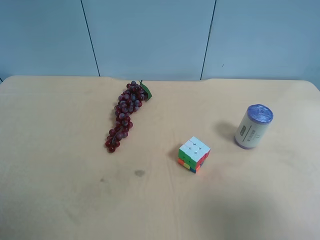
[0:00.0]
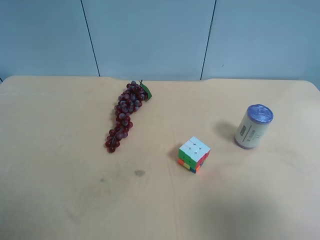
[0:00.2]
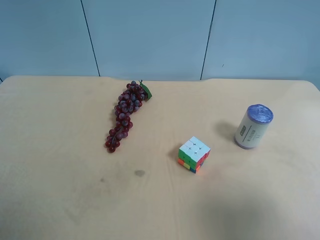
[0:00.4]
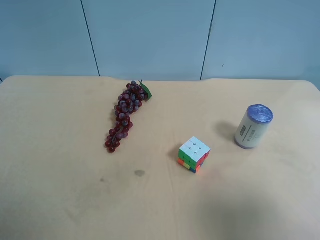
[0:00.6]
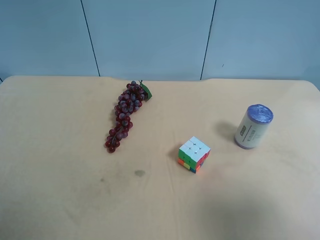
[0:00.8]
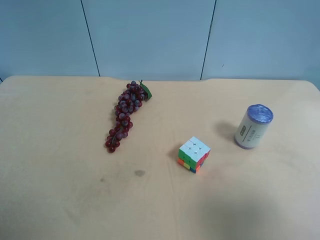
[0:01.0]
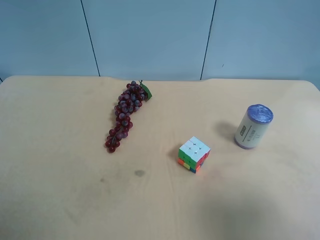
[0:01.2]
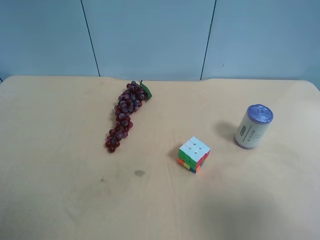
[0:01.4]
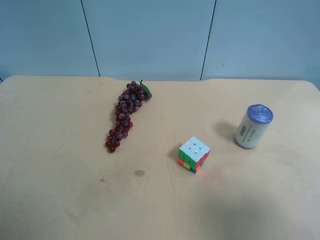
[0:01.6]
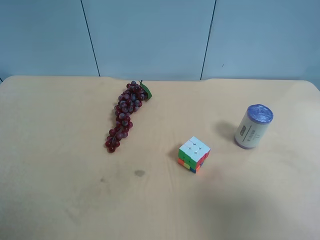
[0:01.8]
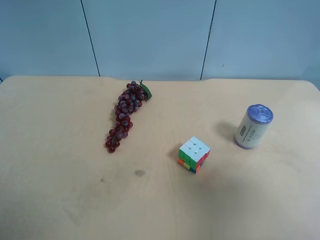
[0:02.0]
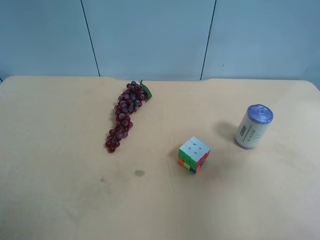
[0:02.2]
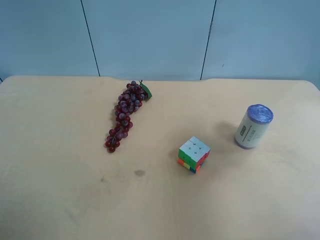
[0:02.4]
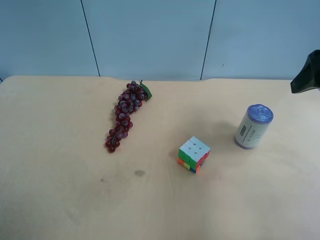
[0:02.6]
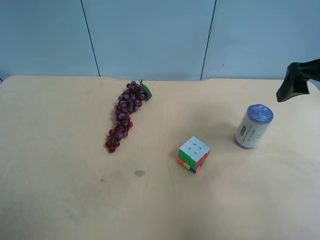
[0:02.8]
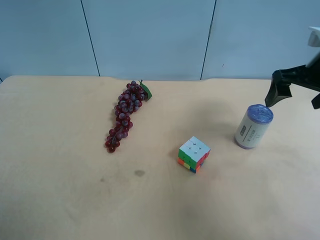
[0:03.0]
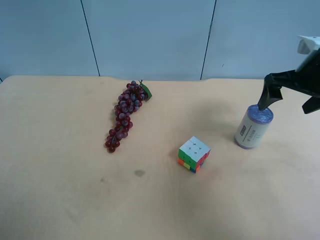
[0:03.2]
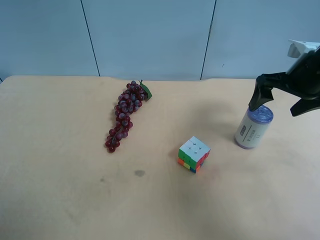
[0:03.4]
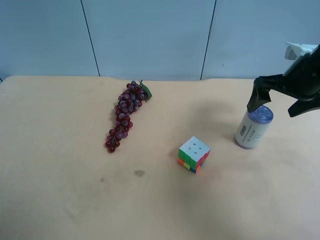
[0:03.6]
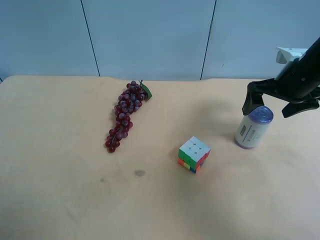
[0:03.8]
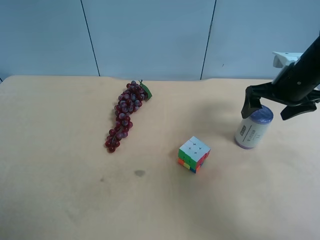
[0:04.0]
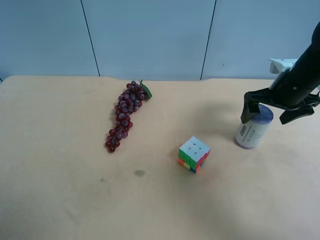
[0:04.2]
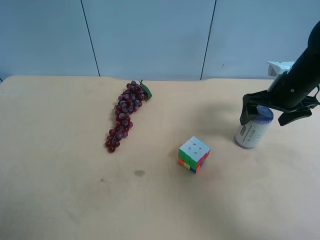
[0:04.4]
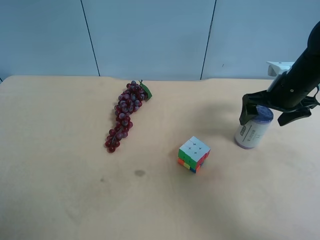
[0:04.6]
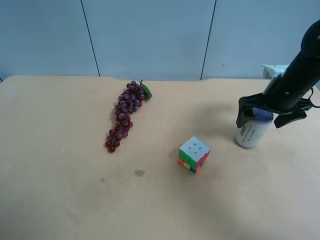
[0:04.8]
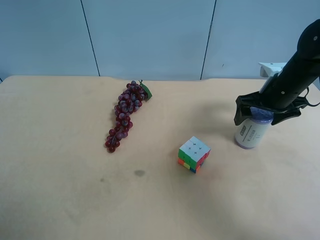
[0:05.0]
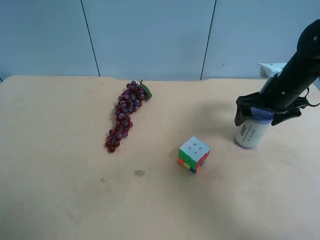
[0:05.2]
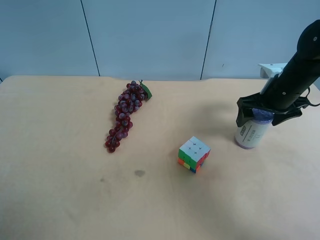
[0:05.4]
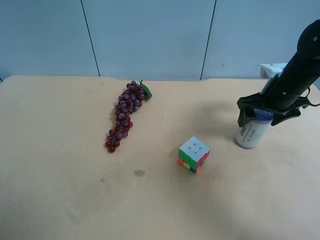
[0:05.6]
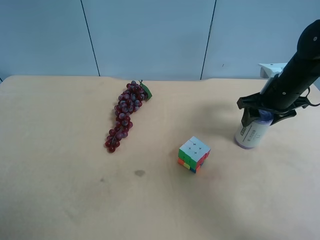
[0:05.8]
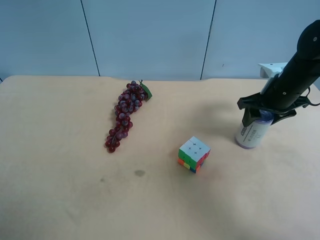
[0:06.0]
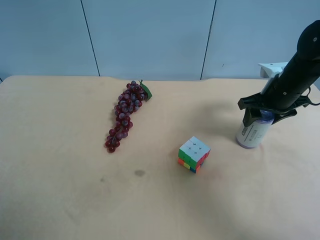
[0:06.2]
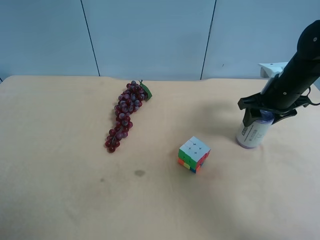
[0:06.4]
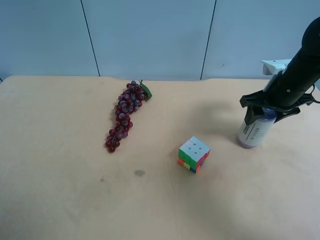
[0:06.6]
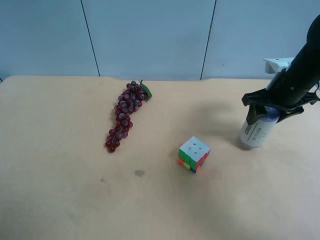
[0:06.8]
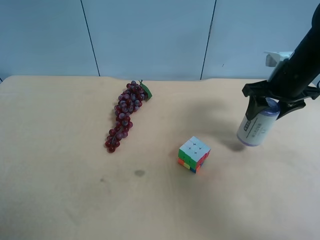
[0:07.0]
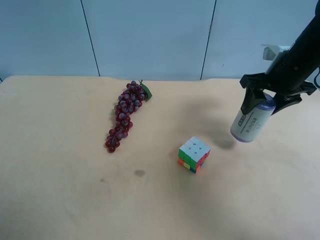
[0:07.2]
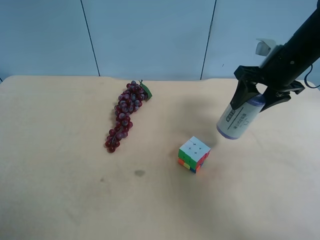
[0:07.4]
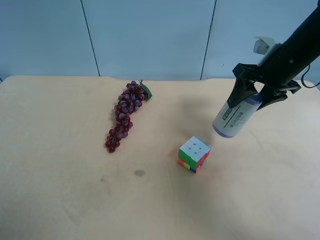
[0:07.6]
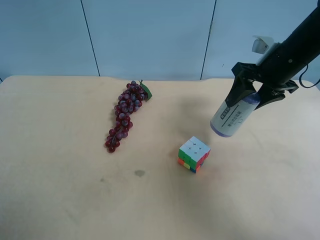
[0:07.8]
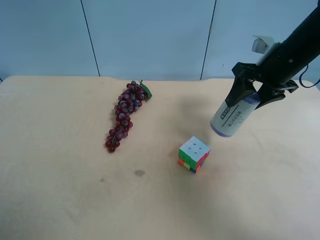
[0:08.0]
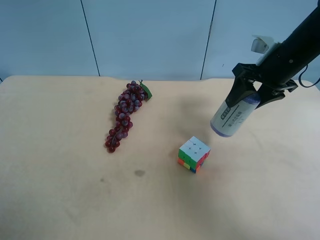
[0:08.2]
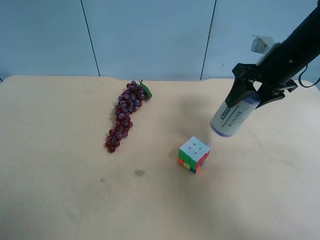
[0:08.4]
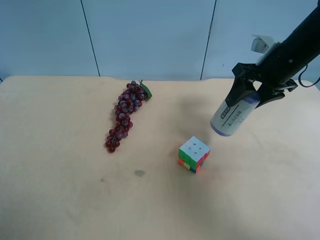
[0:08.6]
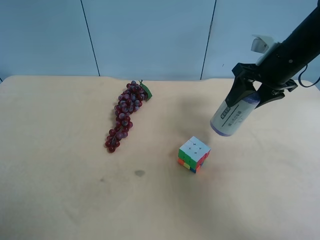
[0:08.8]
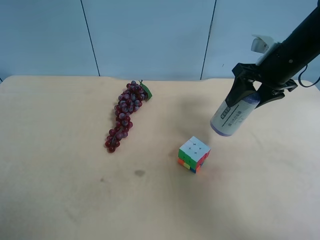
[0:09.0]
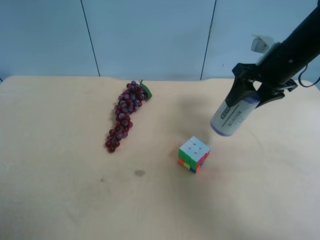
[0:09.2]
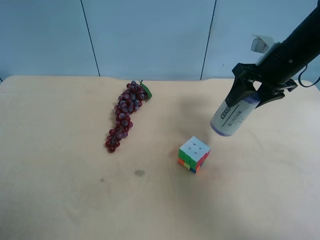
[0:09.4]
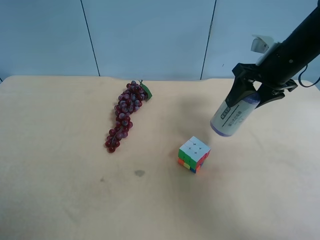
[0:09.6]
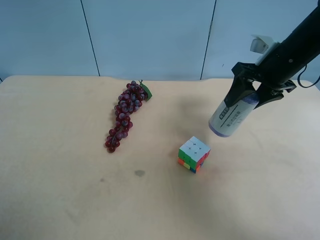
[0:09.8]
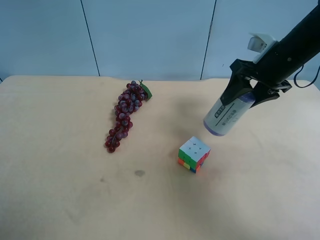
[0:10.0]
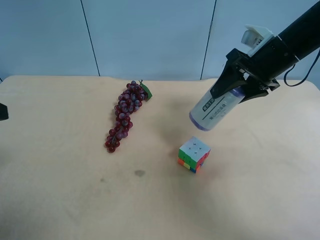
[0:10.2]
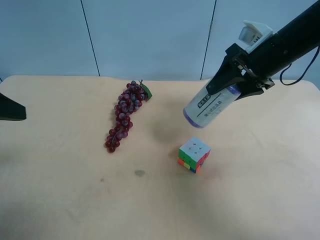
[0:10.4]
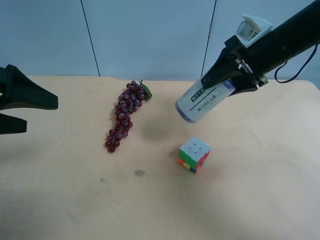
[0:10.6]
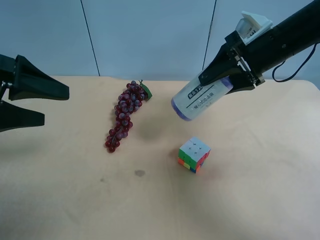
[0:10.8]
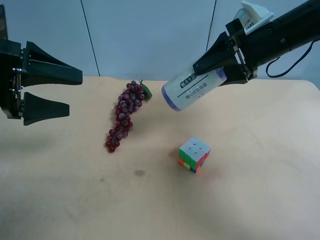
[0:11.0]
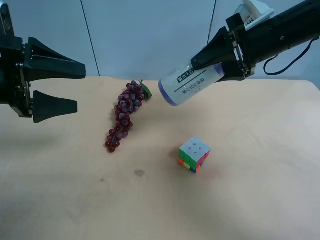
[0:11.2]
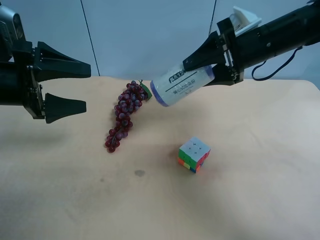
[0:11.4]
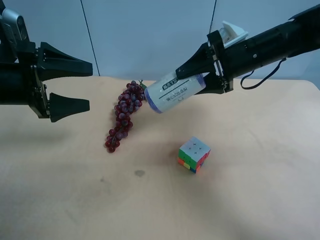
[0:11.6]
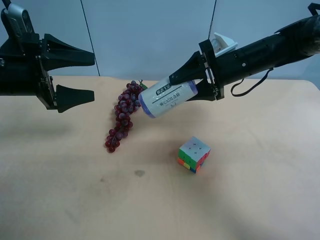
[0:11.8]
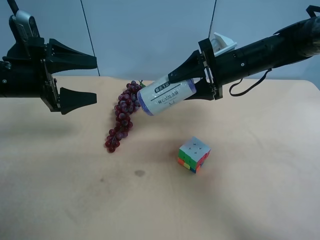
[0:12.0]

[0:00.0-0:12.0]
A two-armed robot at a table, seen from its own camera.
Task of the whole recording: use the right gripper to pick up the item and transfer it from the right gripper to the left gripper.
0:00.0 to 0:01.6: Both grippers stay about where they are.
0:01.6 to 0:03.0: The right gripper moves forward, roughly 30 cm.
0:03.0 to 0:04.4: The right gripper is displaced downward by roughly 5 cm.
0:04.4 to 0:06.0: The right gripper closes up.
0:06.0 to 0:07.6: The right gripper shifts roughly 5 cm upward.
0:07.6 to 0:09.0: Both grippers stay put.
0:09.0 to 0:10.4: The left gripper travels forward by approximately 15 cm.
0:10.4 to 0:12.0: The right gripper shifts by some 5 cm. The left gripper shifts about 15 cm forward and downward.

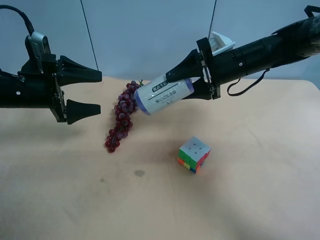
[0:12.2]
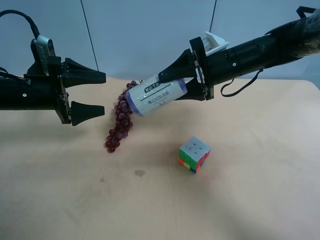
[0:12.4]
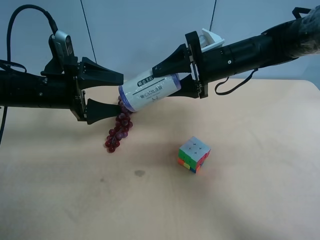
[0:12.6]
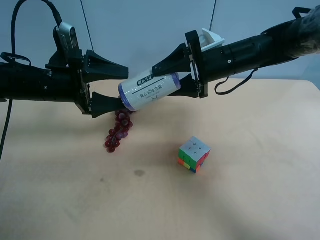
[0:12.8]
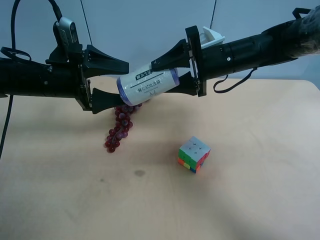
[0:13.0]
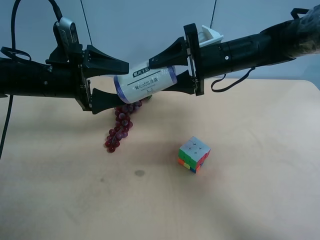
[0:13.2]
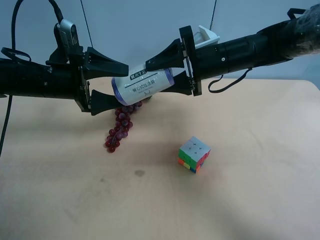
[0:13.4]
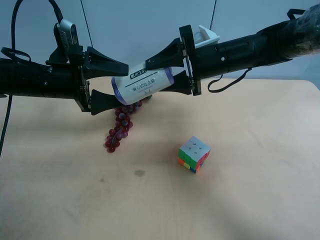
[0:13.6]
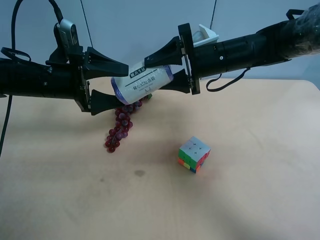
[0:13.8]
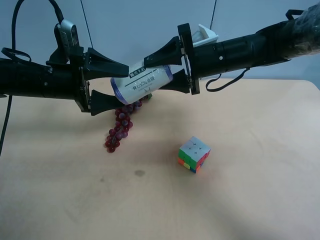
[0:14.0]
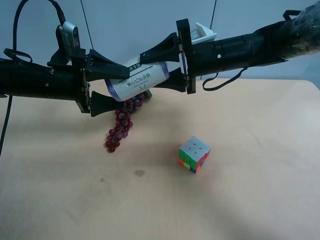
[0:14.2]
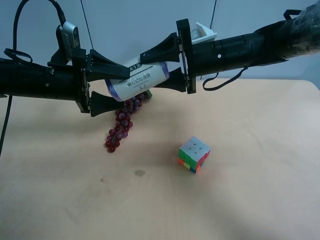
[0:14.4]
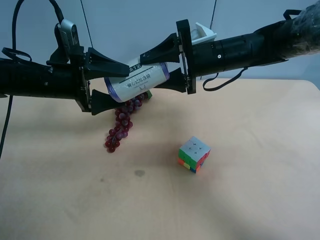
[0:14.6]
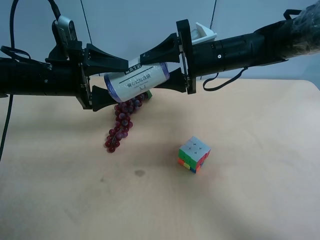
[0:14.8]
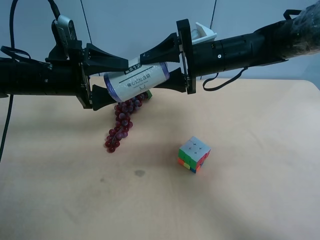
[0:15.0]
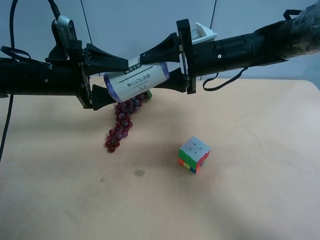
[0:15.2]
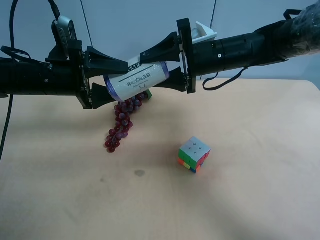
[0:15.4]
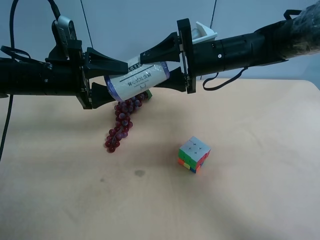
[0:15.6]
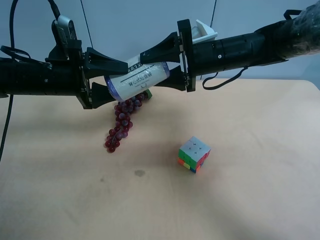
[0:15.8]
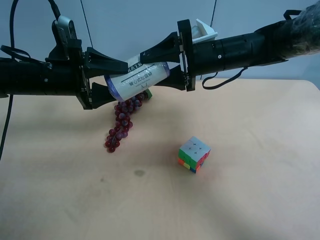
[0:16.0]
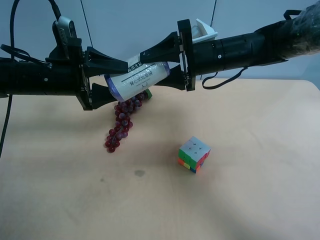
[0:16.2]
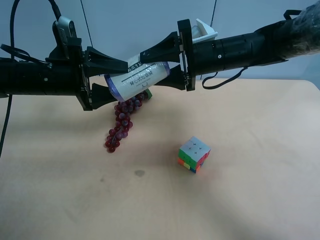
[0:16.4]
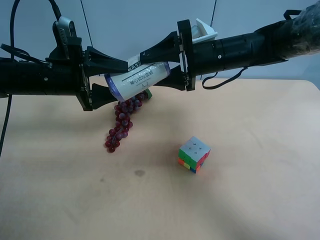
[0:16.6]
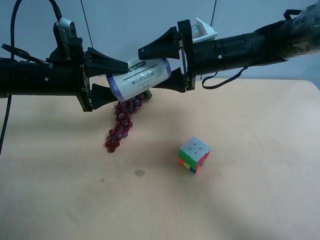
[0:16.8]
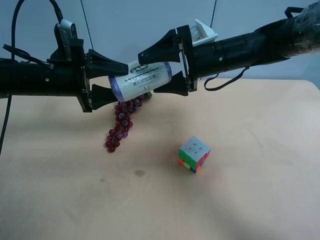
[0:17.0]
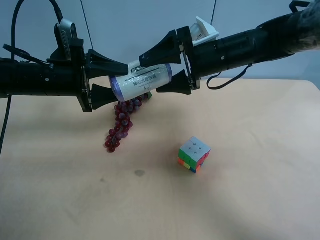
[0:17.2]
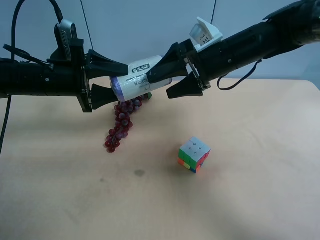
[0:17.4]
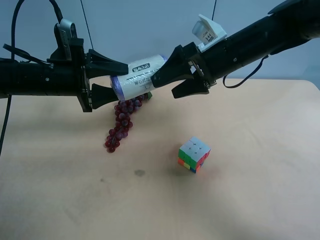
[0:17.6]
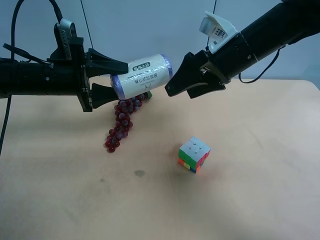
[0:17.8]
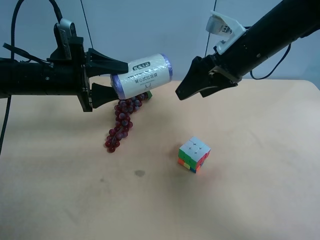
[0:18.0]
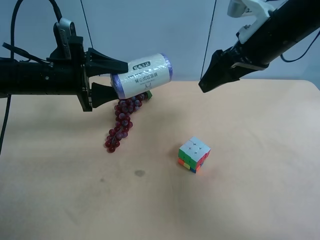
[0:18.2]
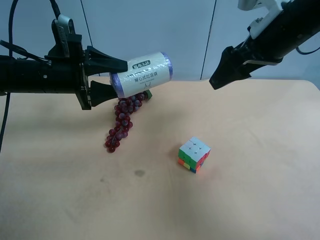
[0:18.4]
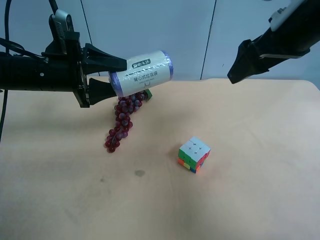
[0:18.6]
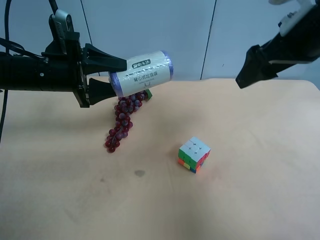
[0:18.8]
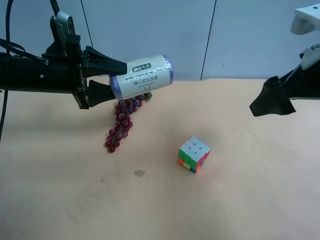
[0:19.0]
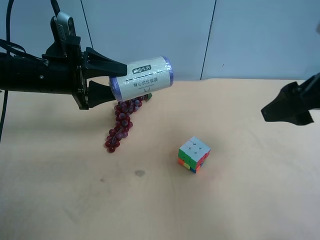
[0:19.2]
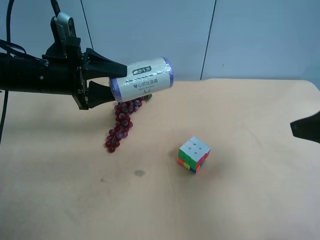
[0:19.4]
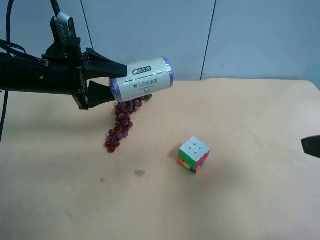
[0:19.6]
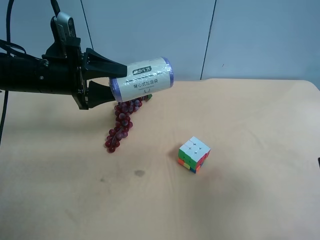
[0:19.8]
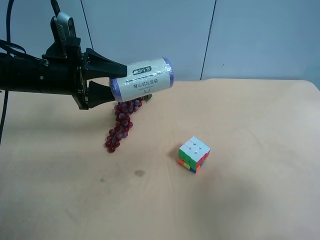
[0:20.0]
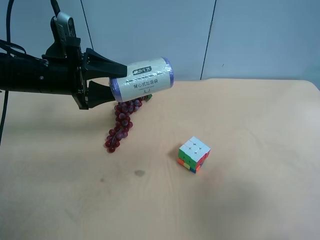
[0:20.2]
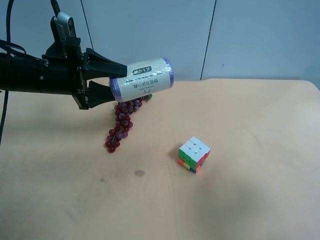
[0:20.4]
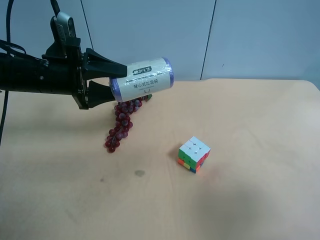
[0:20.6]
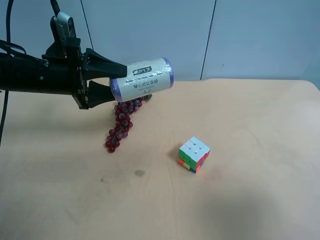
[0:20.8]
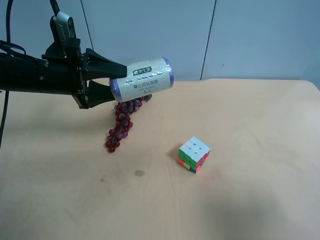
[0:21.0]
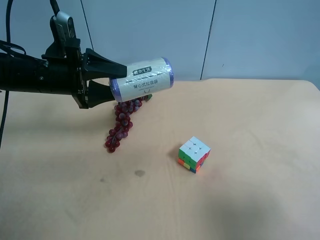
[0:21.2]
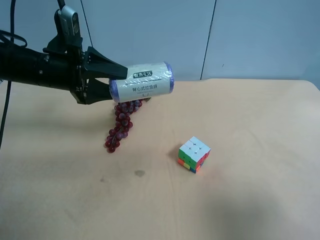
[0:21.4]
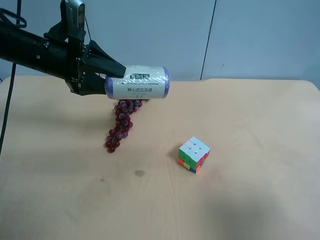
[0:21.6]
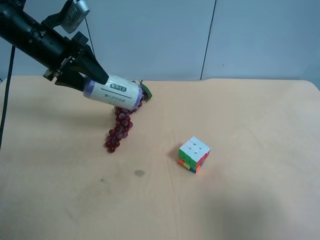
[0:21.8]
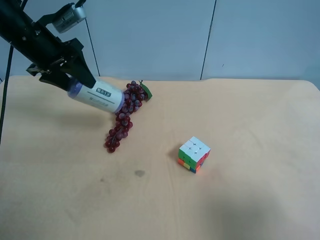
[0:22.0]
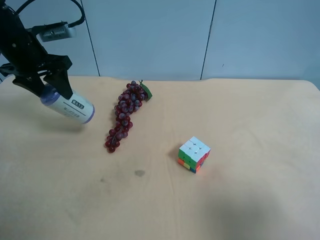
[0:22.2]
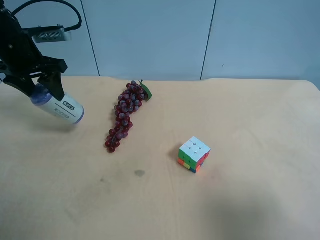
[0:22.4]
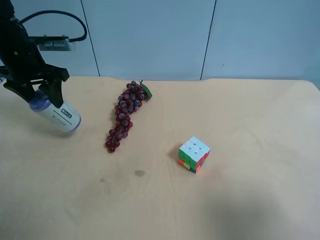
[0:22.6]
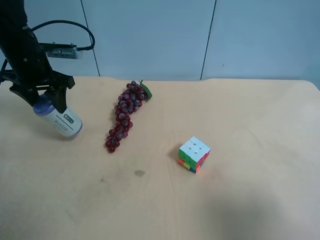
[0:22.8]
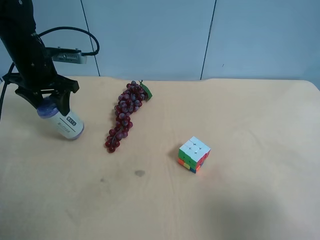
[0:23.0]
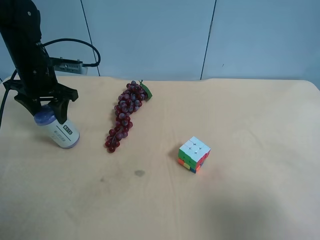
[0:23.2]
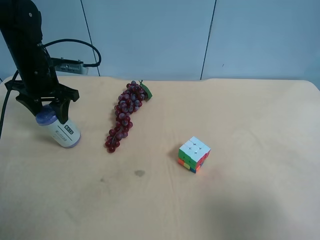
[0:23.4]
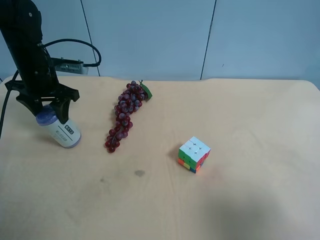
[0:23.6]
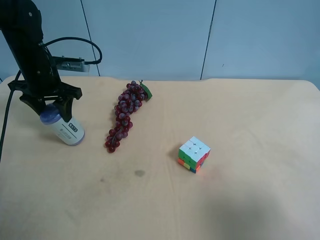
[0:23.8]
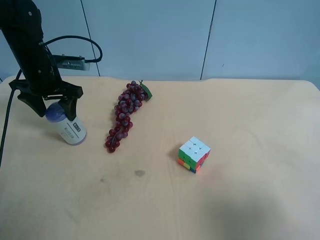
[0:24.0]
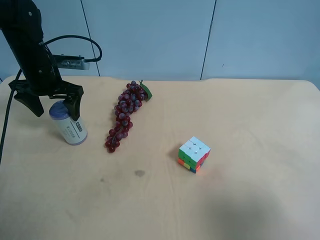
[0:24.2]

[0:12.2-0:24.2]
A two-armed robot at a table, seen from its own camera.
Task of the whole recording: use the right gripper to pick up the item and transfer it from the right gripper to the left gripper.
0:12.2 to 0:13.8: The left gripper is displaced to the right by about 5 cm.
0:13.8 to 0:15.2: Both grippers stay put.
0:15.2 to 0:16.6: The left gripper closes up.
0:16.6 to 0:18.2: The right gripper shifts roughly 10 cm upward, to the right and backward, and opens up.
0:18.2 to 0:19.8: The right gripper travels backward by roughly 25 cm.
0:19.8 to 0:21.2: The right gripper is displaced backward by about 5 cm.
0:21.2 to 0:22.6: The left gripper moves to the left and forward, about 10 cm.
0:22.6 to 0:24.2: The left gripper opens.
